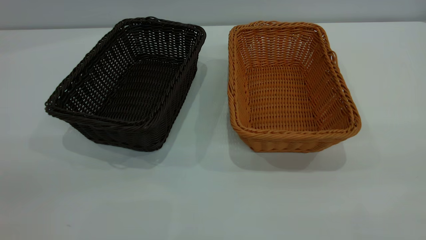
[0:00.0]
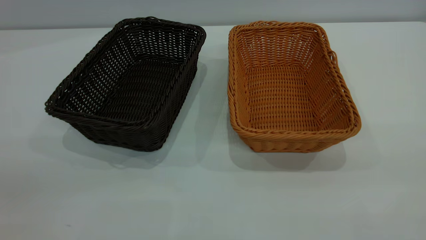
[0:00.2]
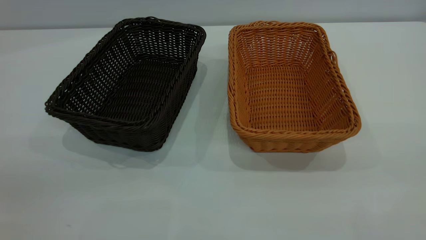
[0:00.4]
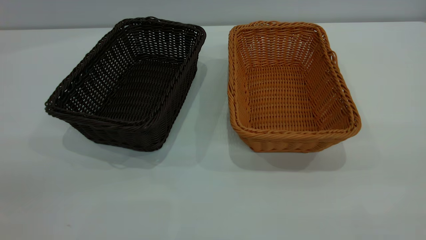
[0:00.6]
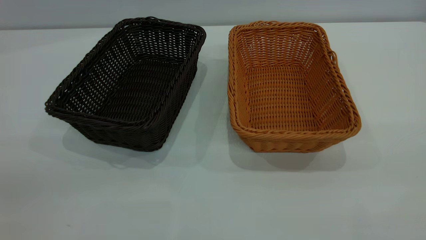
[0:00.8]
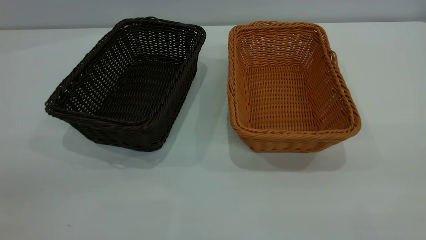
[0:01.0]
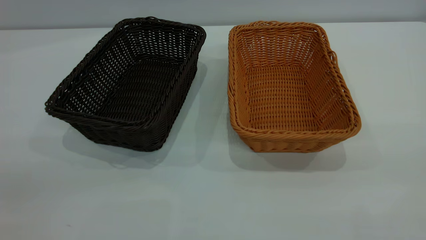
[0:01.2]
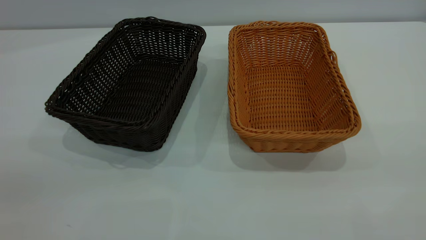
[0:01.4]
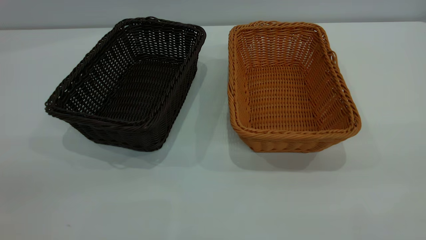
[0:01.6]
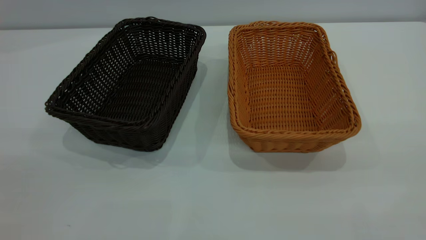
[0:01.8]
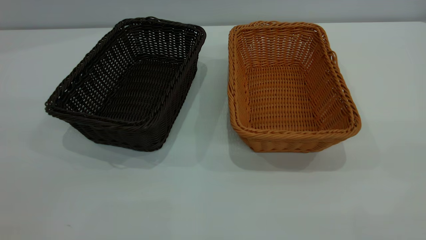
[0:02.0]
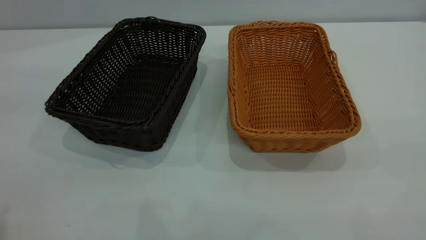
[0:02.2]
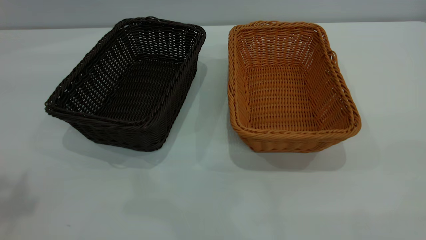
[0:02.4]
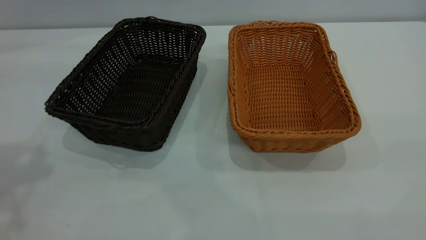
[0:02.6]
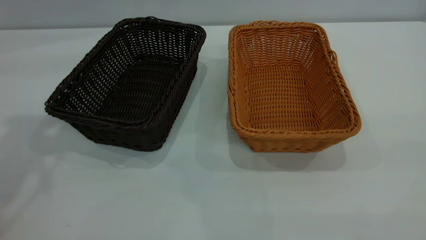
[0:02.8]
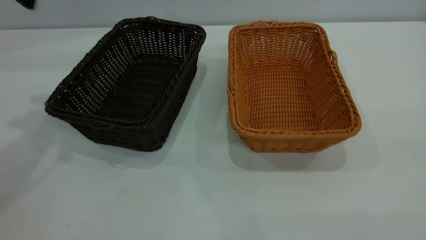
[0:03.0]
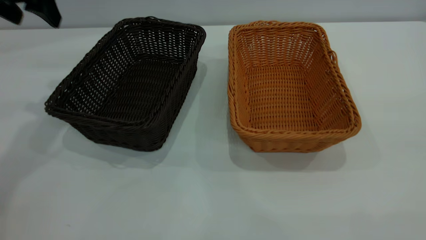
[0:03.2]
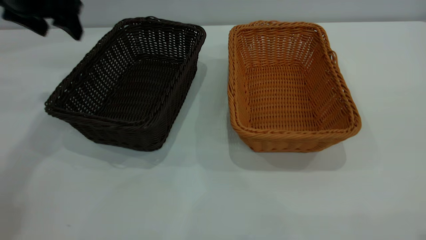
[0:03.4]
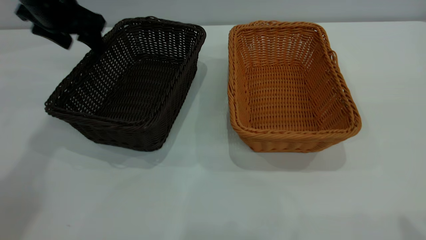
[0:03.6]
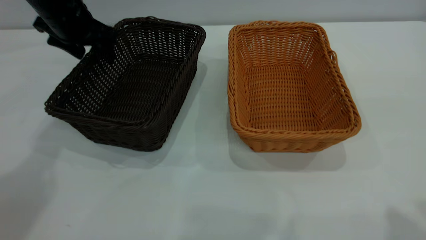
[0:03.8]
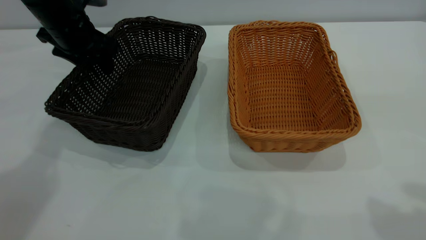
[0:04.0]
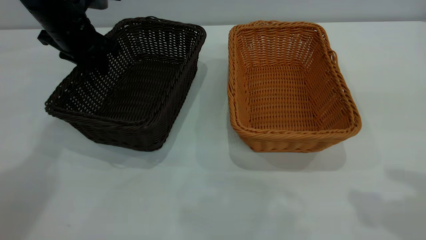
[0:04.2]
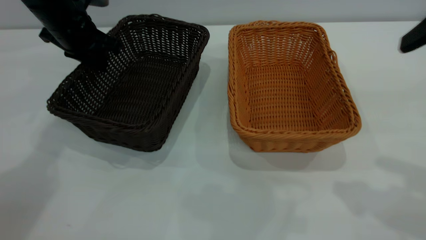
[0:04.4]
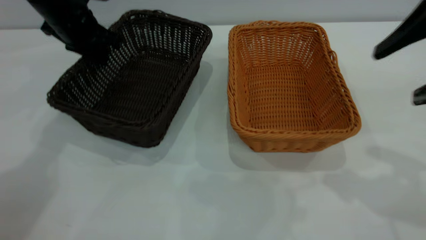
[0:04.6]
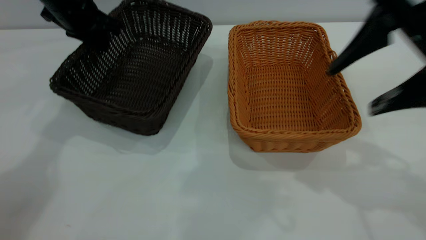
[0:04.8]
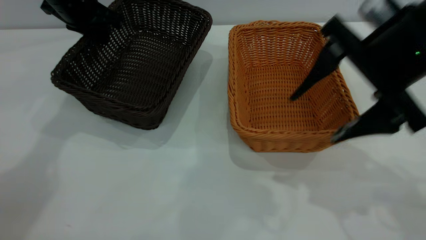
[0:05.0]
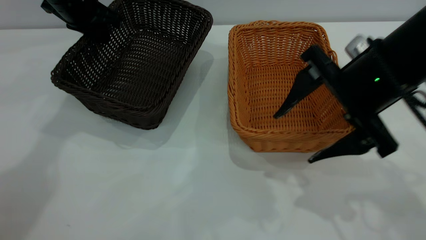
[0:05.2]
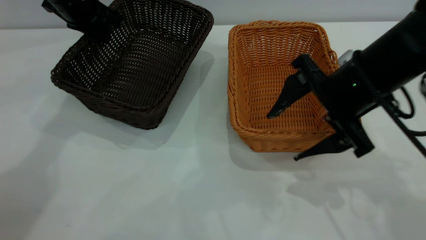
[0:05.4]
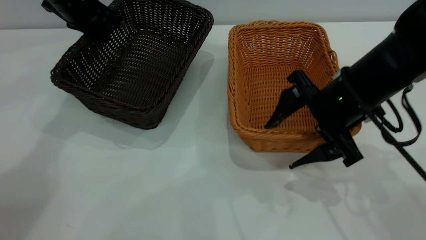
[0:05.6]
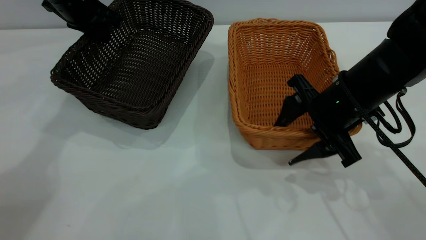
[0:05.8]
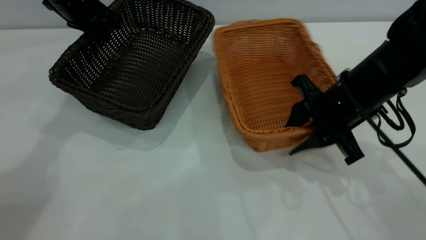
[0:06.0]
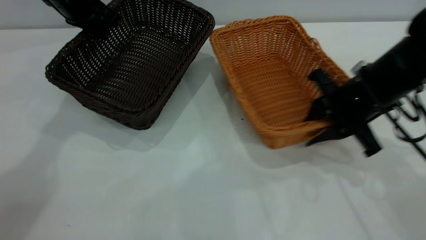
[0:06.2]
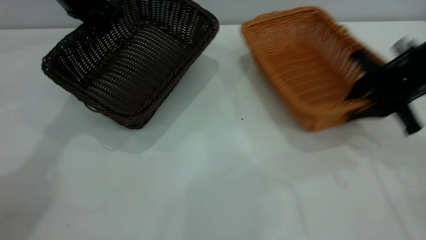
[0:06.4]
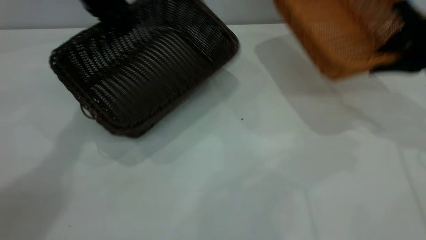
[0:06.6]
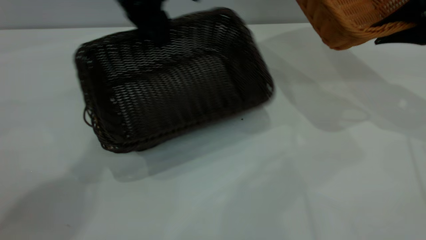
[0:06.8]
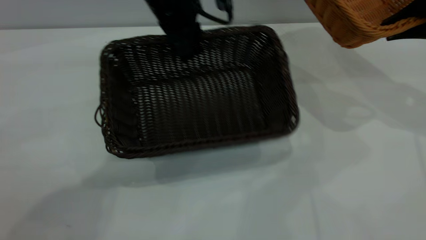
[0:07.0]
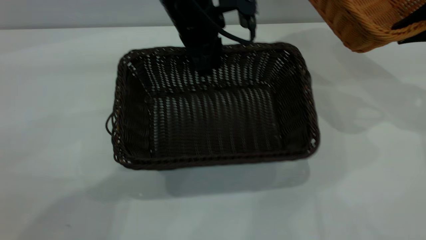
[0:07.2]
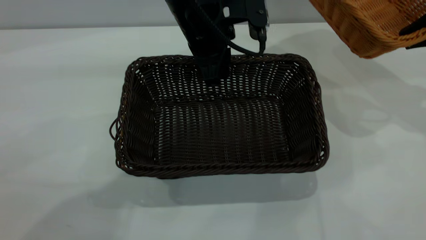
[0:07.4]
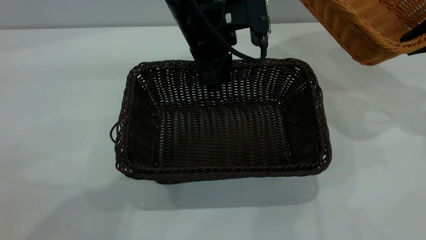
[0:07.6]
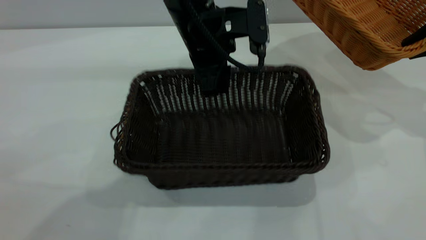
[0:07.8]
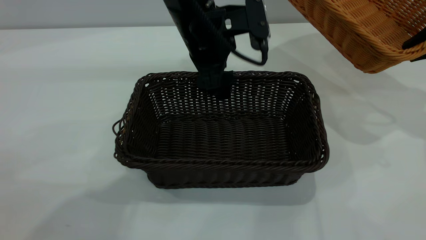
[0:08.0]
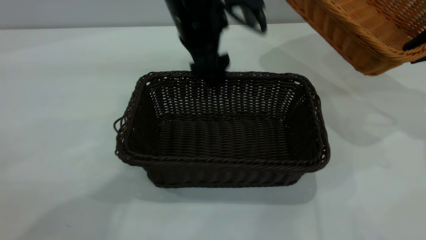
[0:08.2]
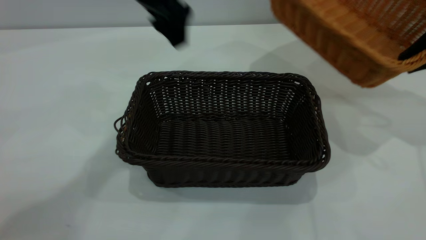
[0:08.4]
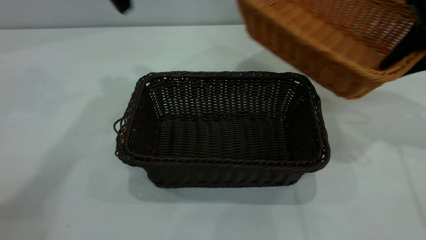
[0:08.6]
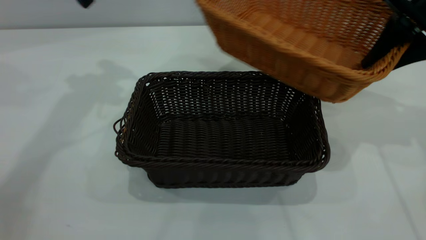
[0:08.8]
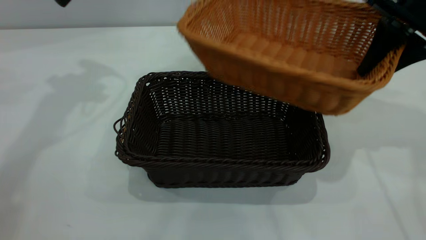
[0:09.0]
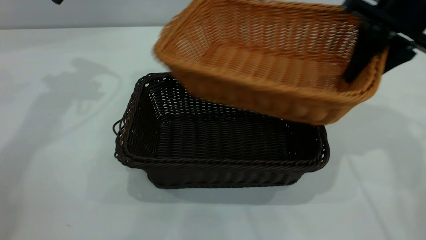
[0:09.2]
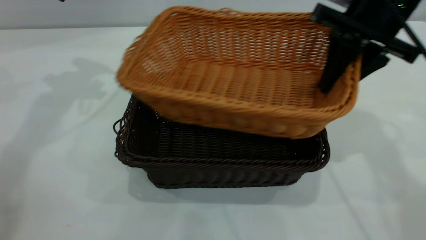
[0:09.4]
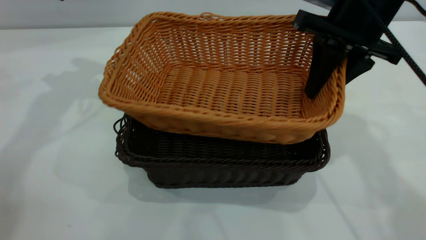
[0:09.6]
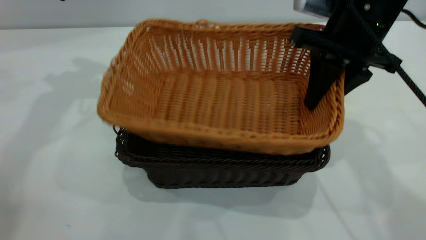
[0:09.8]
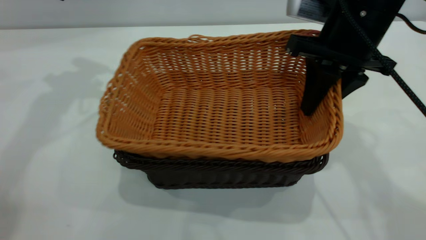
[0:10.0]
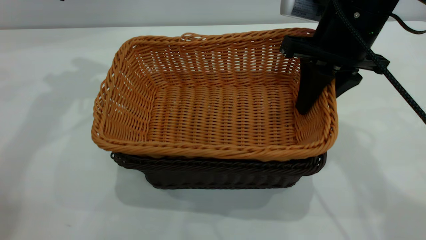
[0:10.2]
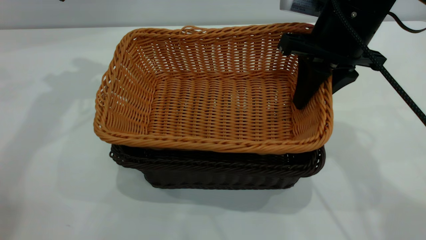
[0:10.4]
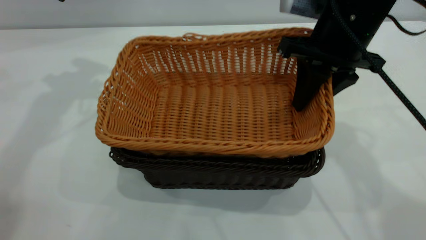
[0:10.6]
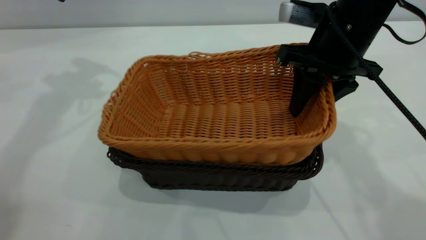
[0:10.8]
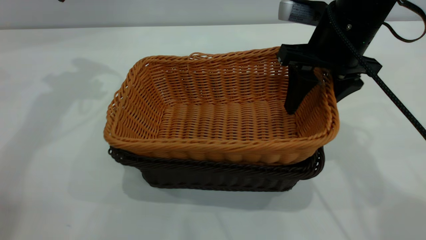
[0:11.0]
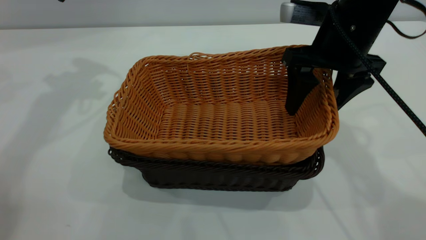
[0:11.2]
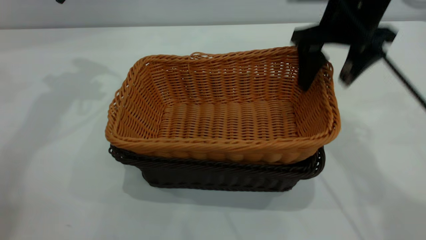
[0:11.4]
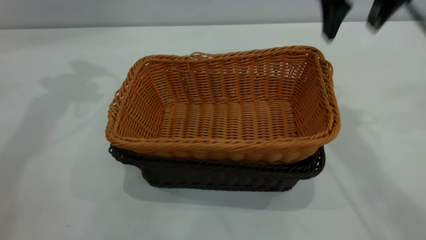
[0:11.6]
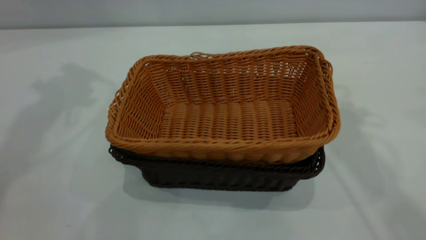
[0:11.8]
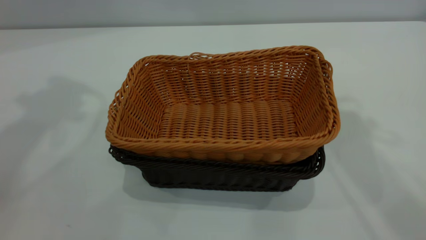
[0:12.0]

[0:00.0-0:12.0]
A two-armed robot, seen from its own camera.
Task of the whole recording: the left gripper grasp the black basket and place it in the center of the table, the right gripper grasp the brown basket and place it inside the black one.
Step, 0:00.0 to 0:06.4: Pick up the light basket with the right gripper.
Step, 0:06.6 to 0:08.2: Move the dark basket to the center of view.
Step, 0:08.4 to 0:11.4: Place the light basket on the dark basket.
0:00.0 to 0:01.6: Both grippers stay about where they are.
0:03.0 to 0:04.4: The right gripper heads forward and downward, covering about 20 cm; the left gripper goes approximately 15 cm downward and forward, and closes its fingers.
0:04.4 to 0:06.0: The right gripper shifts approximately 25 cm downward, forward and to the left, and closes.
0:06.0 to 0:07.6: The right gripper moves to the right and upward, about 20 cm, while the left gripper travels to the right and backward by approximately 25 cm.
0:07.6 to 0:09.0: The right gripper heads to the left, covering roughly 10 cm; the left gripper travels to the left and upward by approximately 30 cm, and opens up.
0:09.0 to 0:10.4: The right gripper heads to the left, covering some 10 cm.
0:10.4 to 0:12.0: The left gripper is displaced upward and backward by about 20 cm. Meanwhile the right gripper shifts roughly 25 cm upward, and opens its fingers.
